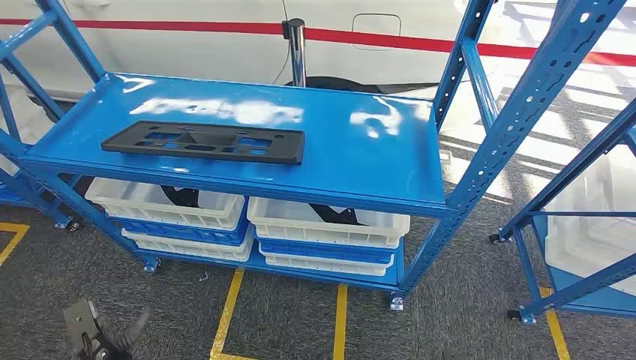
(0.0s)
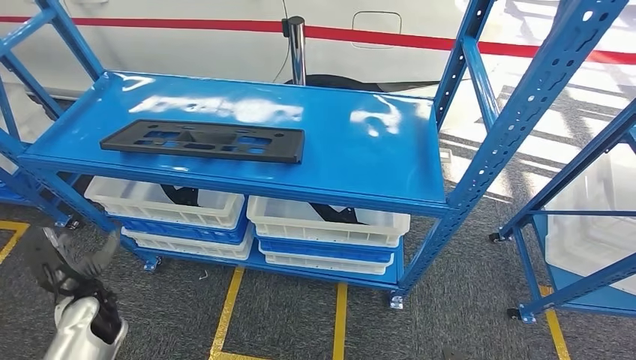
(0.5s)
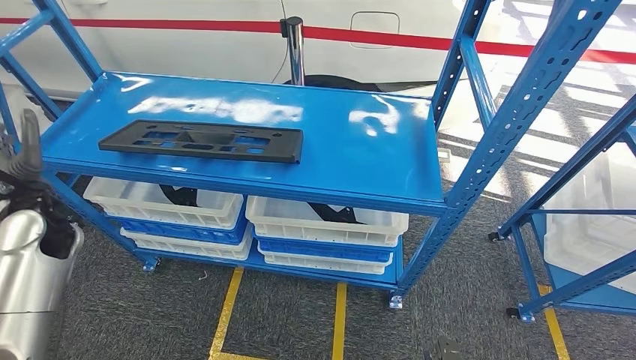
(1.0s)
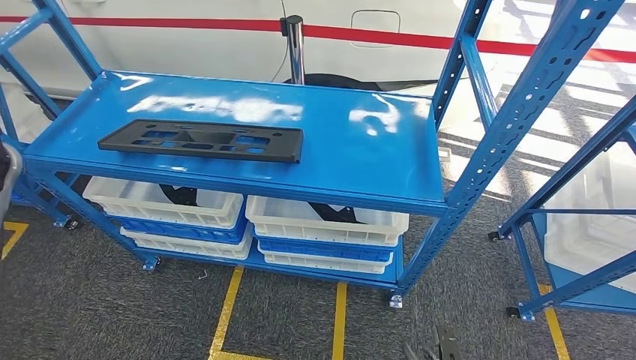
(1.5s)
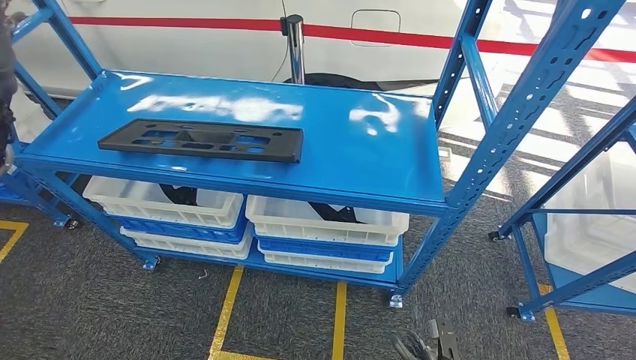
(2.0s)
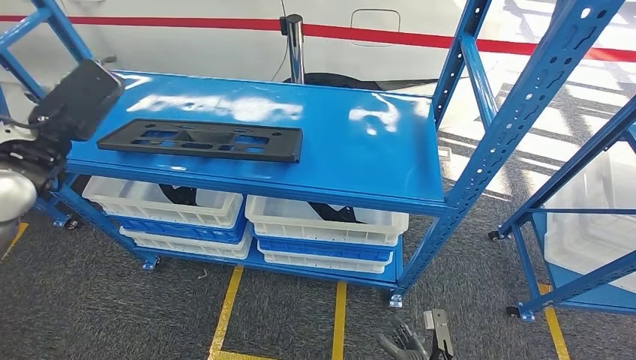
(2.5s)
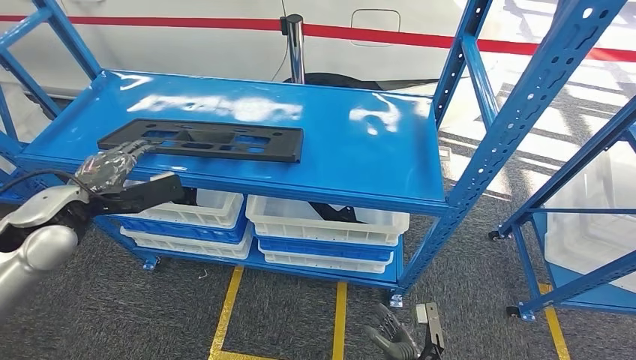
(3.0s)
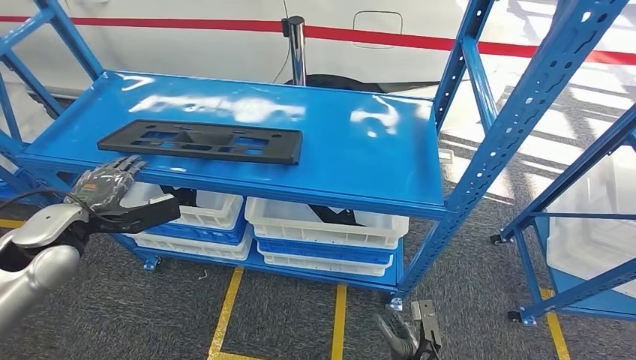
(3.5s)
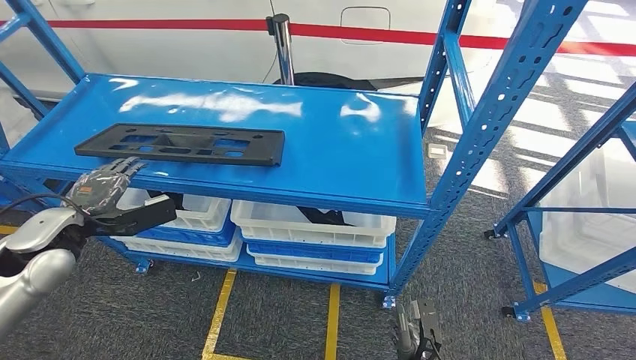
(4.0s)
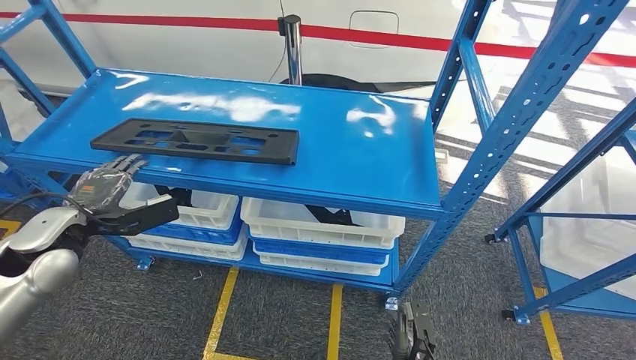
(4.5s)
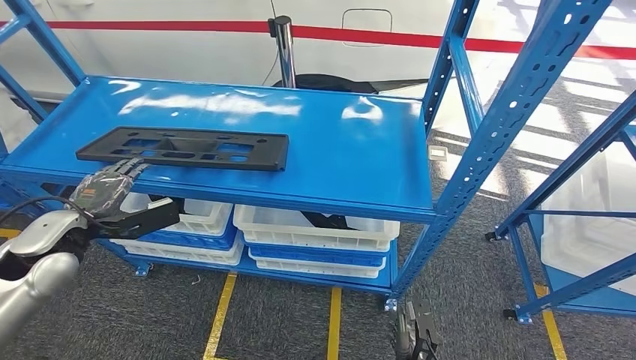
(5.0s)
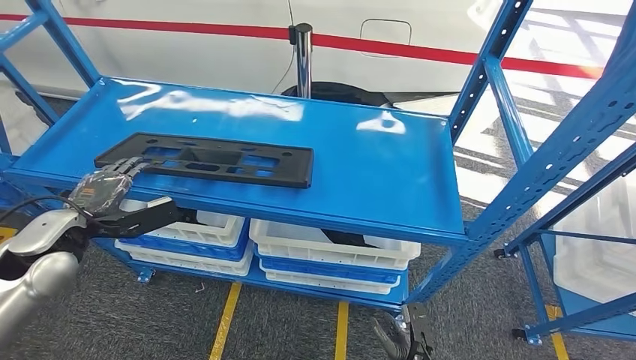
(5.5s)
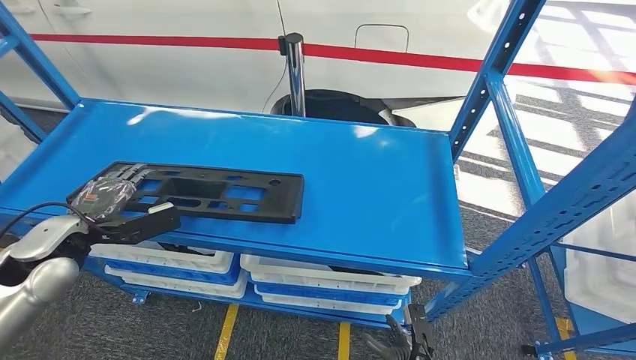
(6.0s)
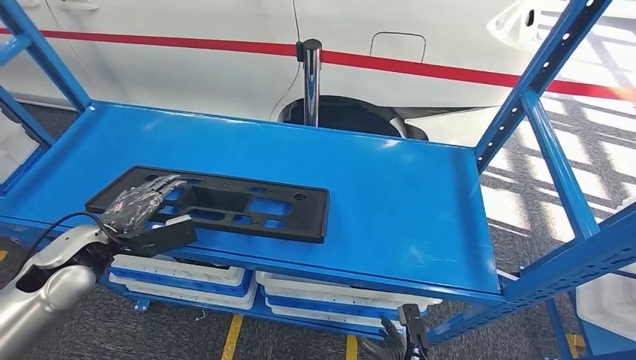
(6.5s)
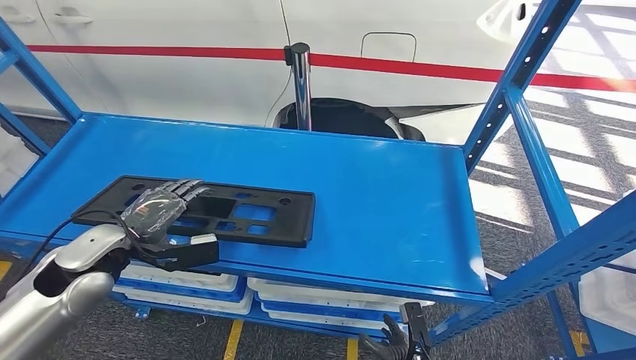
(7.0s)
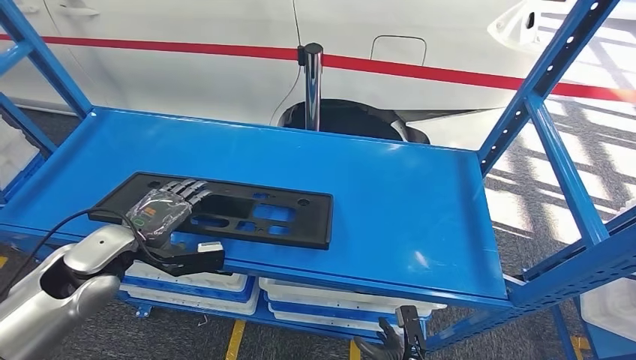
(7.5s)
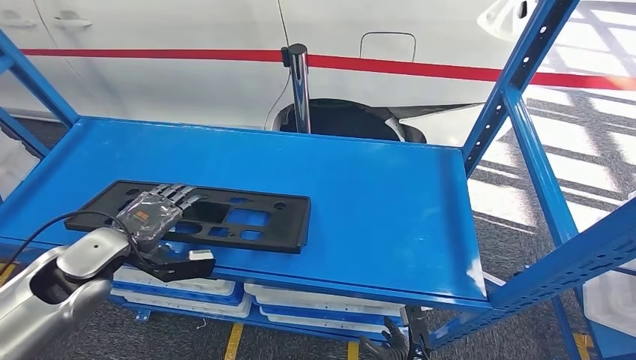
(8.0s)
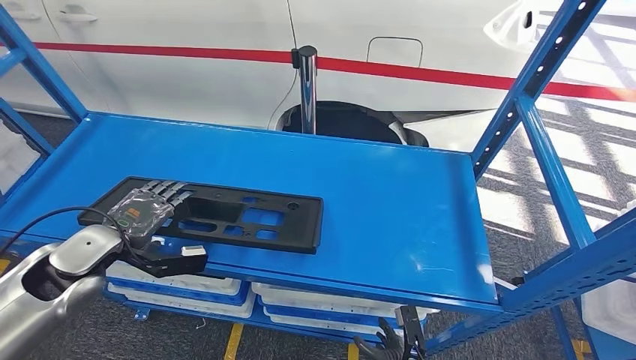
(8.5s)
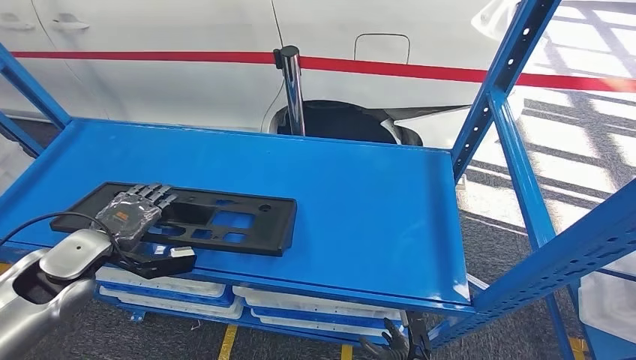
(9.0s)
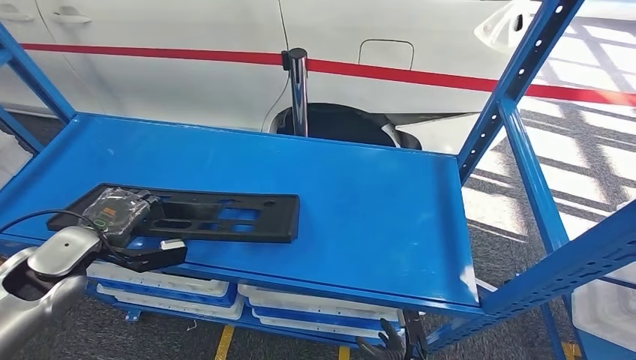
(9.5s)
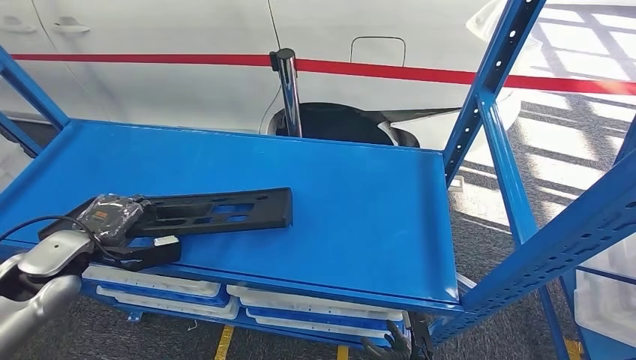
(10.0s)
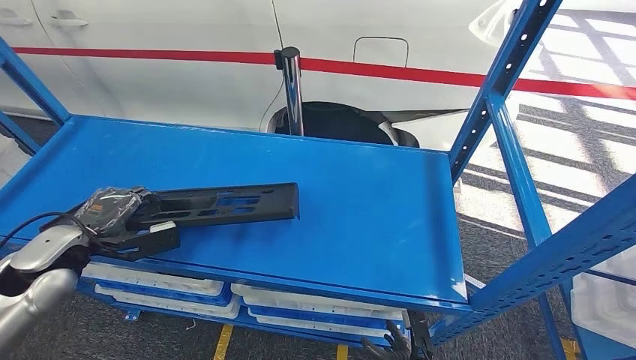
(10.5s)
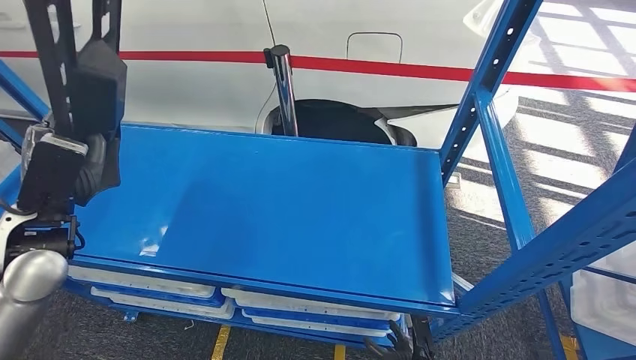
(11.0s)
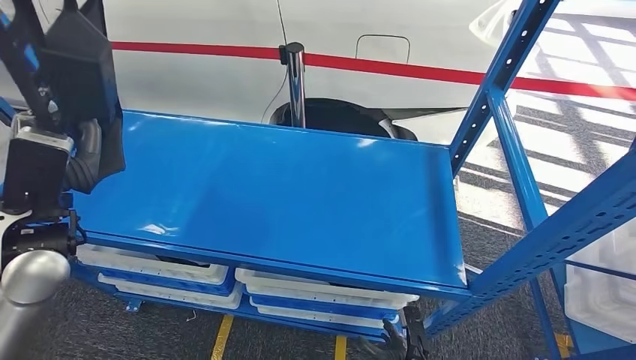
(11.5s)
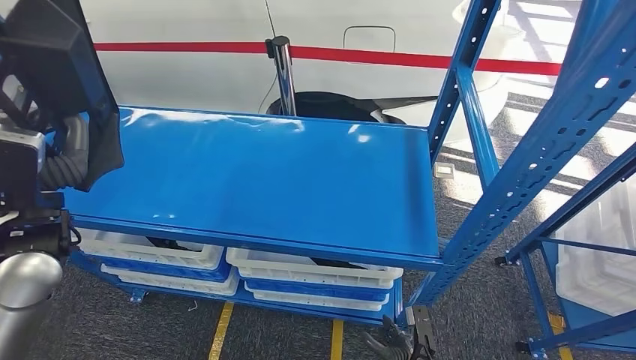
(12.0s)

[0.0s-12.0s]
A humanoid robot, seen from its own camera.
Step, 0.0s to 11.5s: Pick up the large material from the shelf.

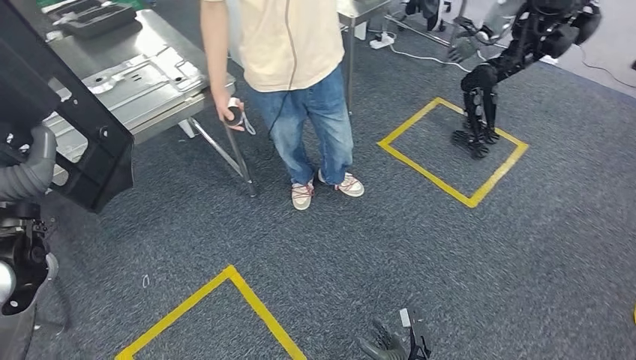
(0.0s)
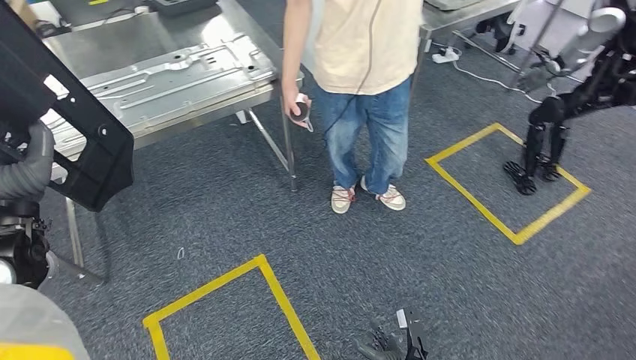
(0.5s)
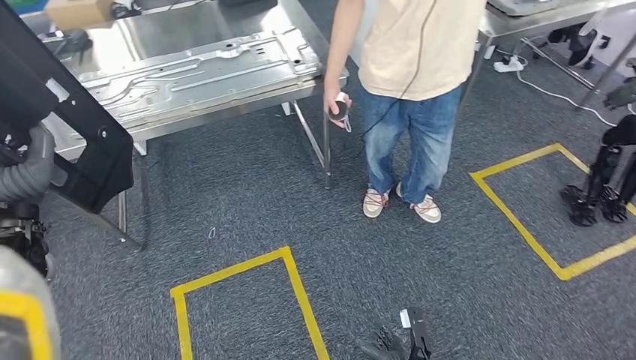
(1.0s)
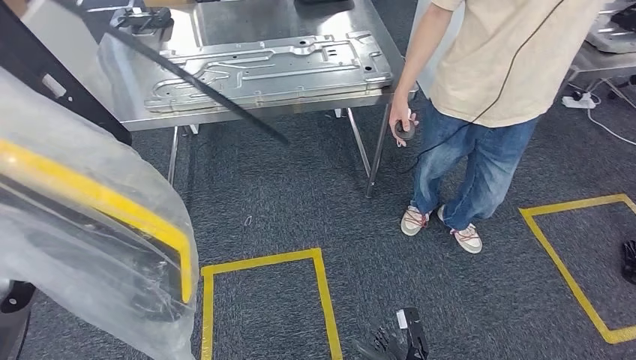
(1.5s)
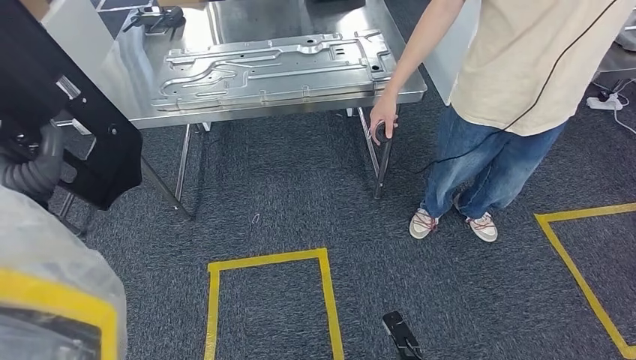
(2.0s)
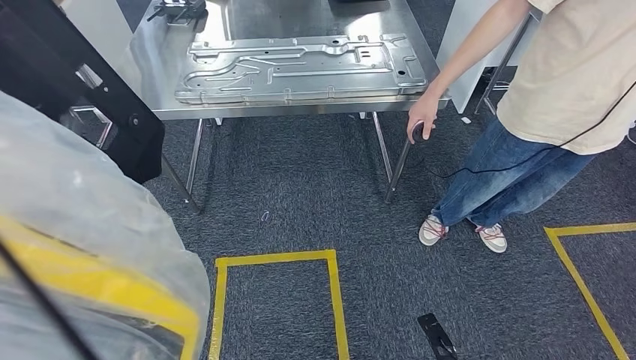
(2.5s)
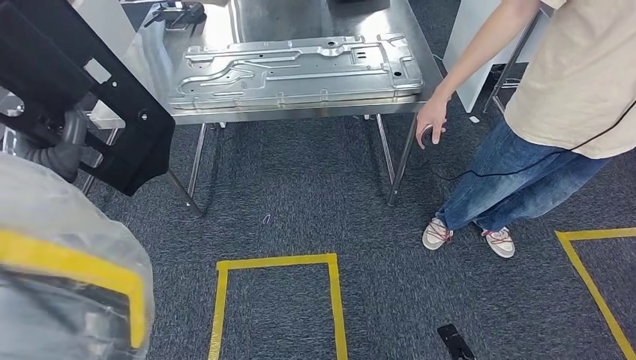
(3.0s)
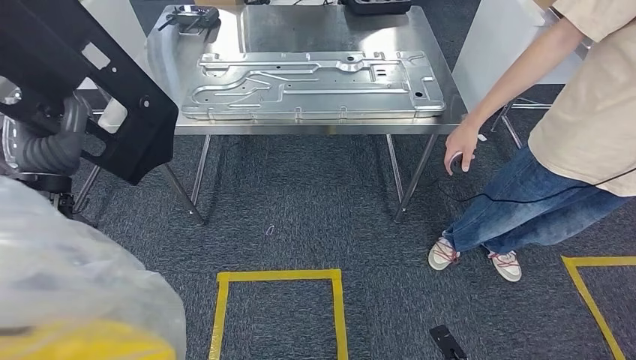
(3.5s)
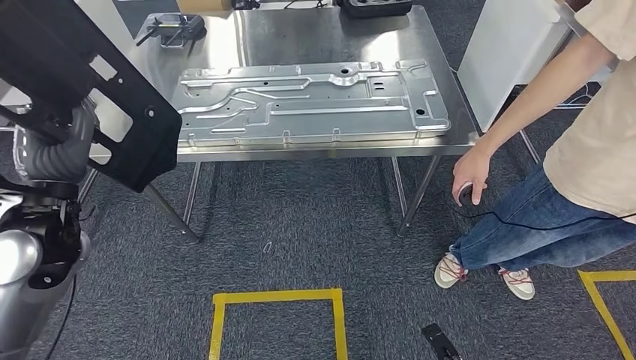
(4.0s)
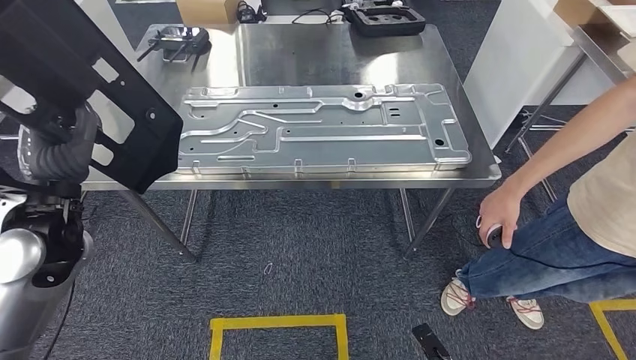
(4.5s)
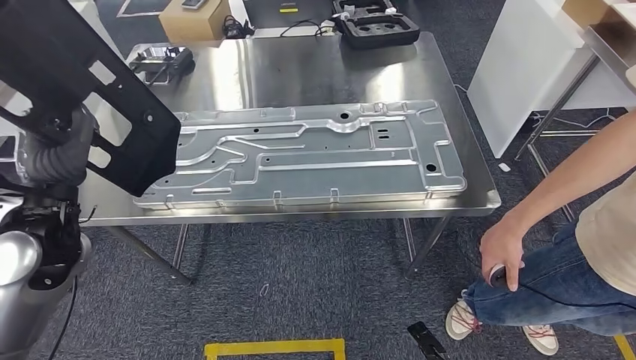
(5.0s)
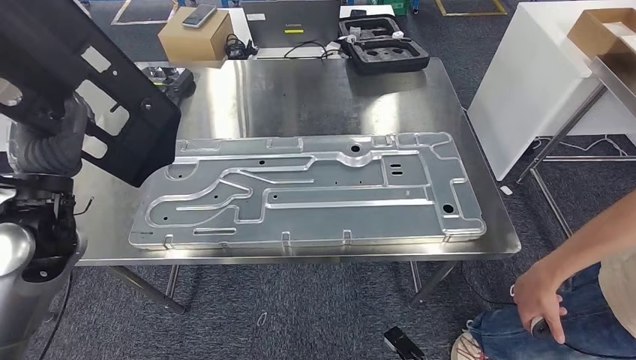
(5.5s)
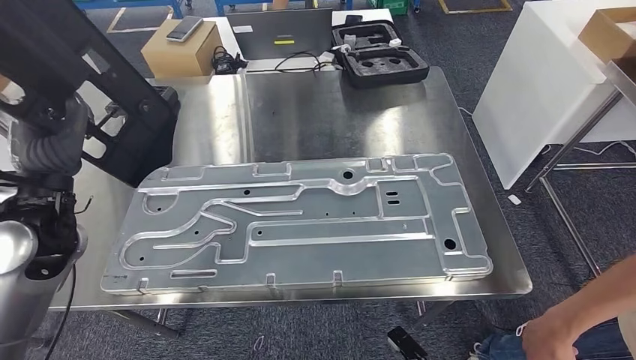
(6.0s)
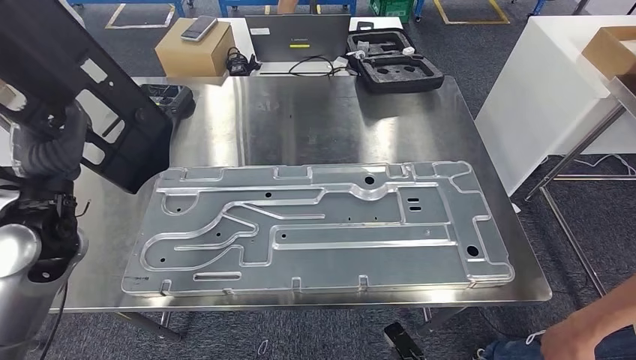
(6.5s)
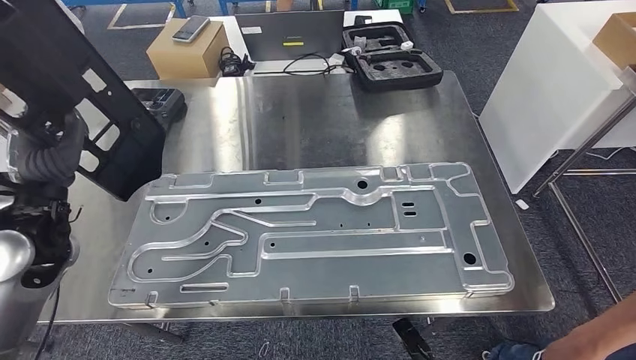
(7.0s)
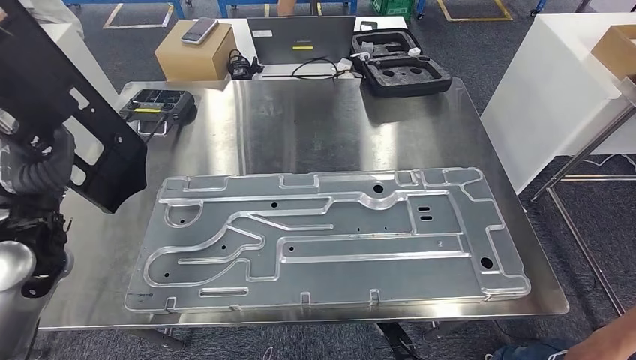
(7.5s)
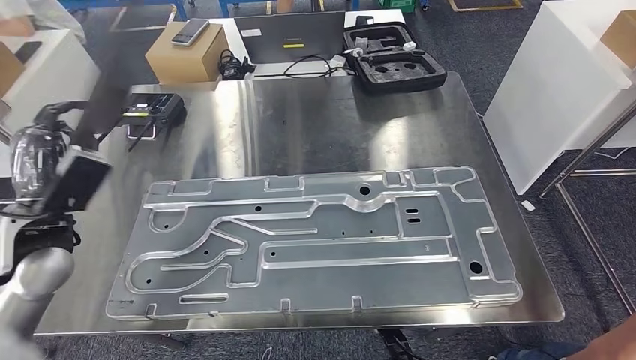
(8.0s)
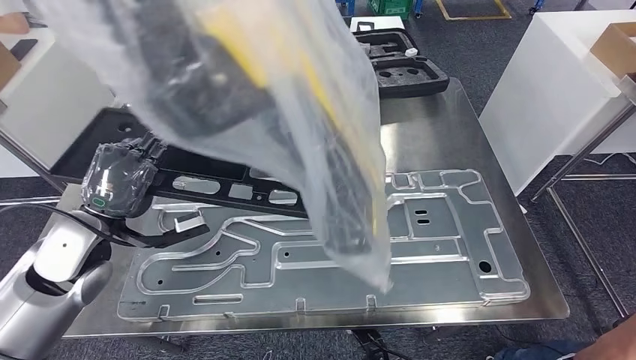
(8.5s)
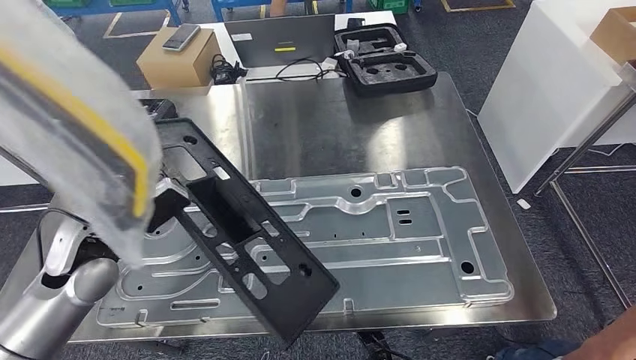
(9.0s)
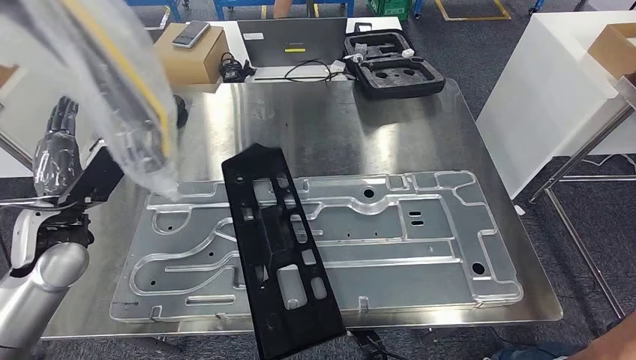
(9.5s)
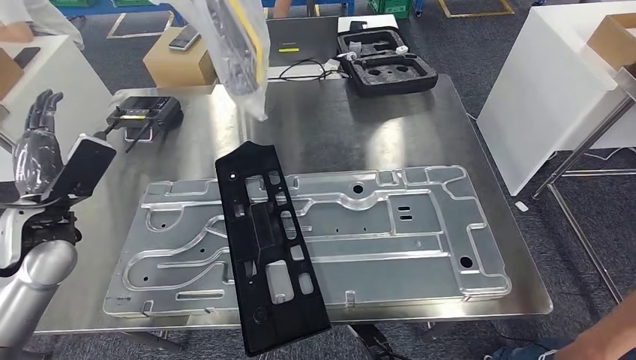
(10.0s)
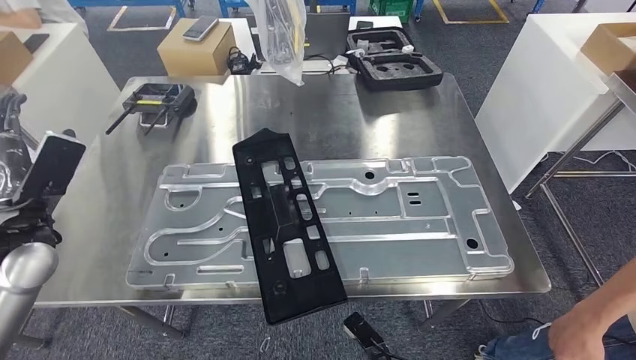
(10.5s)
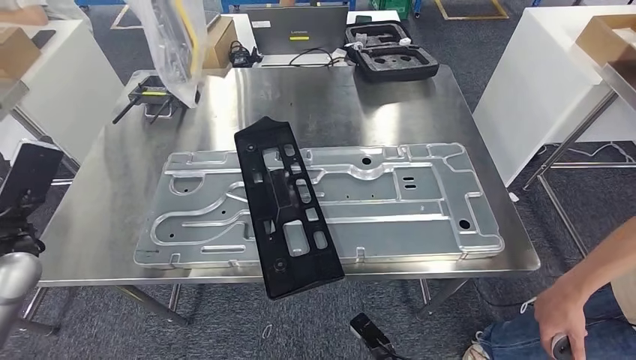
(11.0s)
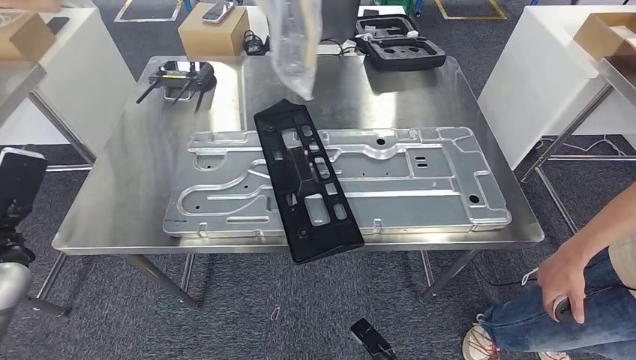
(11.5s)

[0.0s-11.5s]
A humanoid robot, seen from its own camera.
Step, 0.0s to 5.0s: Move the large material to the workbench.
Step, 6.0s to 11.0s: Insert the large material into the corresponding slot on the workbench.
